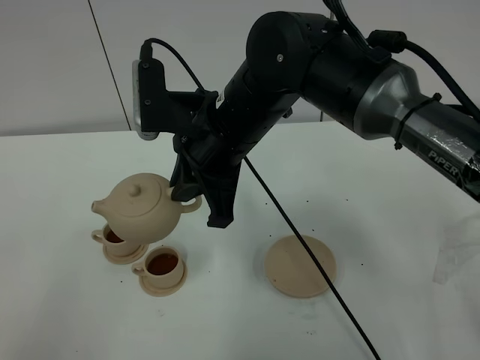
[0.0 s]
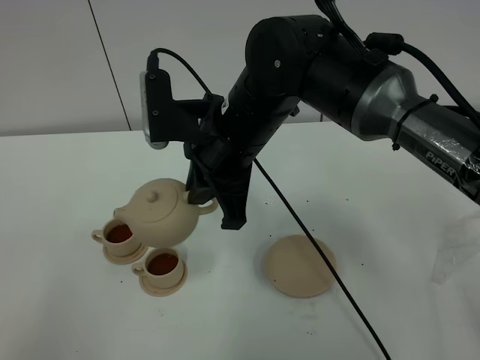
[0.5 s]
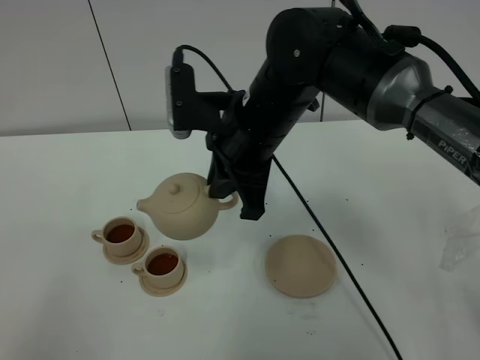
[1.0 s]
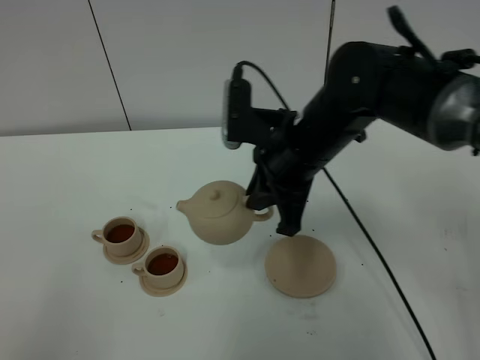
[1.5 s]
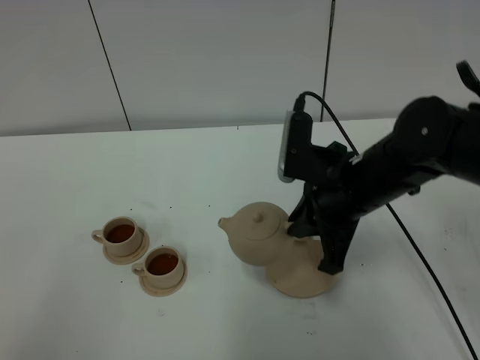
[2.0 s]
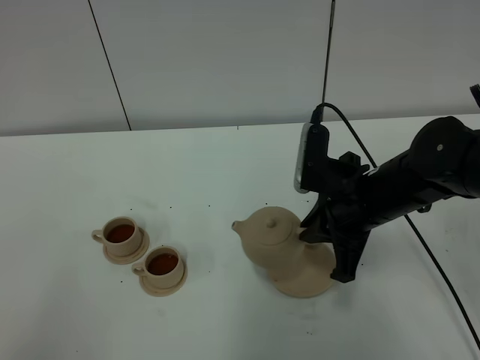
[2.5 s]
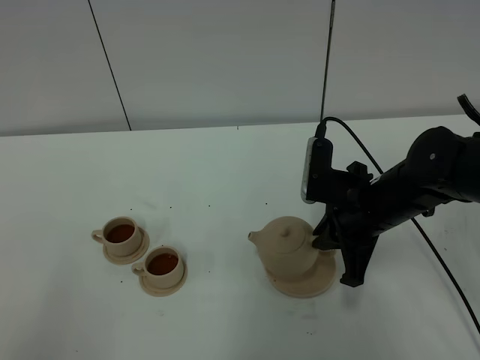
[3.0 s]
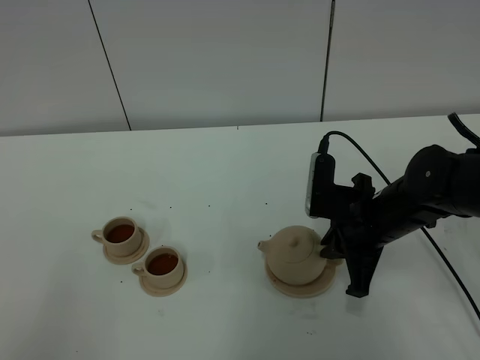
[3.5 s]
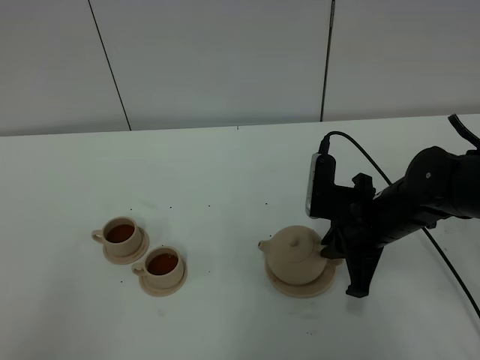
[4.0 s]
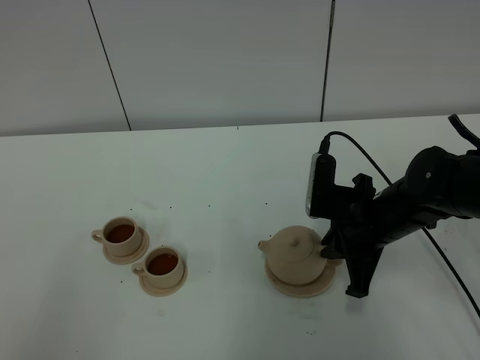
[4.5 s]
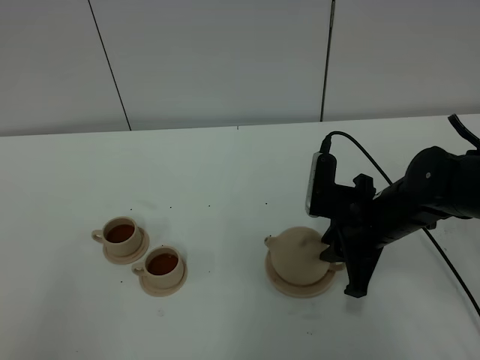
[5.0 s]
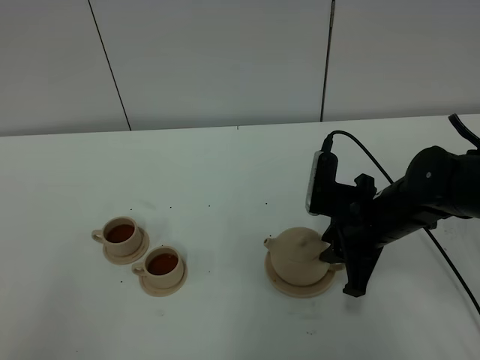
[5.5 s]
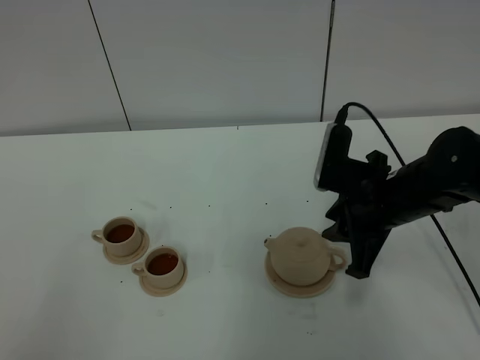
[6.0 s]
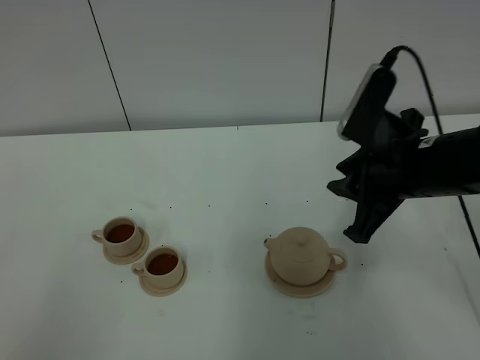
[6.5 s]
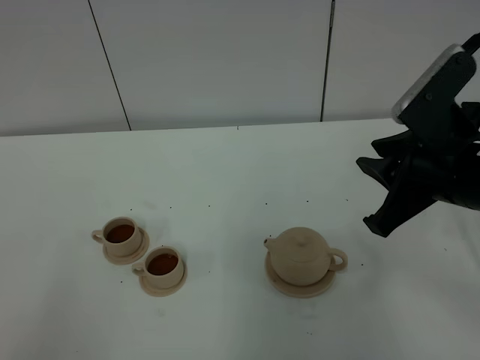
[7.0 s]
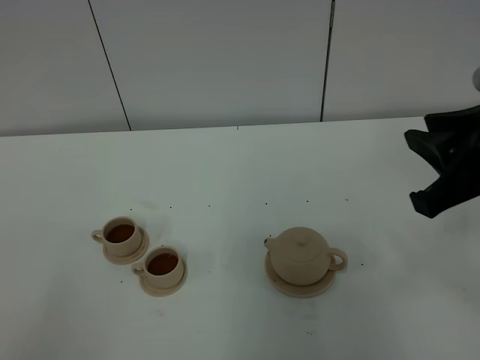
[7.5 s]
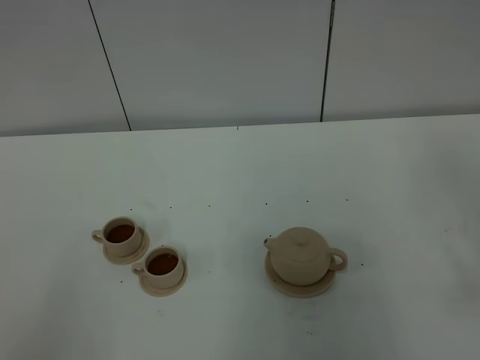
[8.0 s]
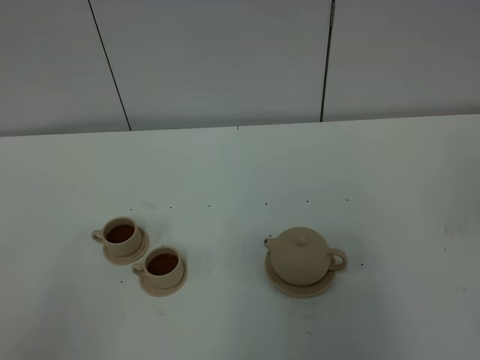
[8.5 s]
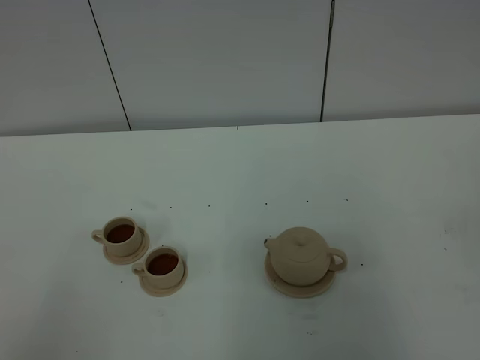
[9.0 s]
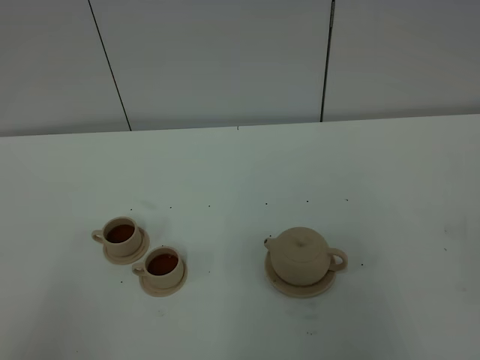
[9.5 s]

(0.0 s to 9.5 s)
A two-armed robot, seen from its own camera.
Task of the whole recording: grasp the brown teapot and pour the tea into the two brown teacups one by one, put the brown teapot back in its original place.
0.0 s - 2.0 s: The right gripper shifts roughly 15 cm to the right and downward.
2.0 s - 4.0 s: The right gripper shifts some 5 cm downward.
4.0 s - 5.5 s: The right gripper opens.
5.5 s - 7.5 s: The right gripper shifts roughly 20 cm upward, backward and to the right.
7.5 s - 9.5 s: The right gripper heads backward and to the right, covering roughly 20 cm, and opens up.
